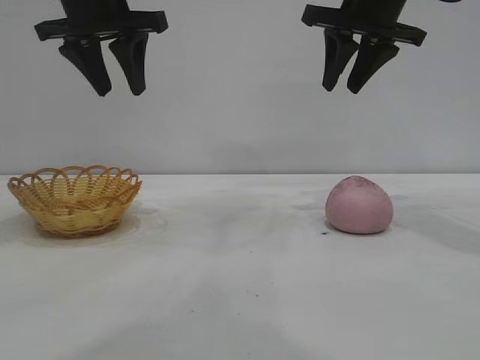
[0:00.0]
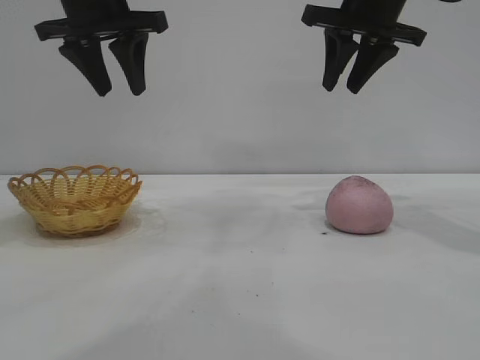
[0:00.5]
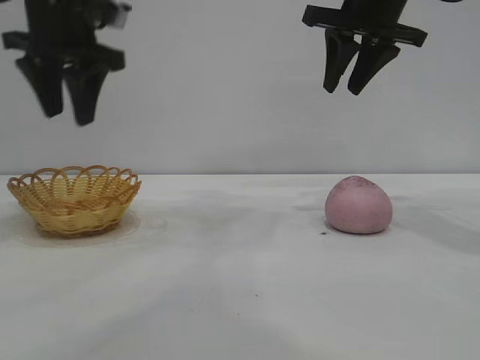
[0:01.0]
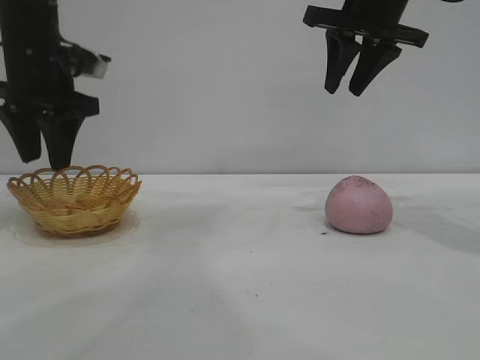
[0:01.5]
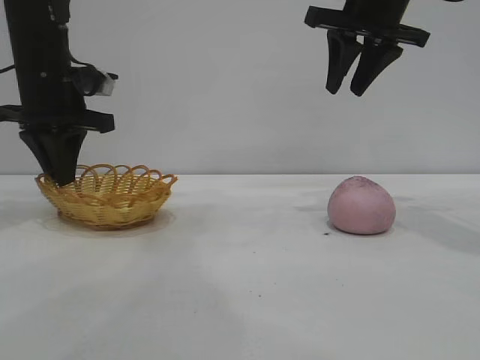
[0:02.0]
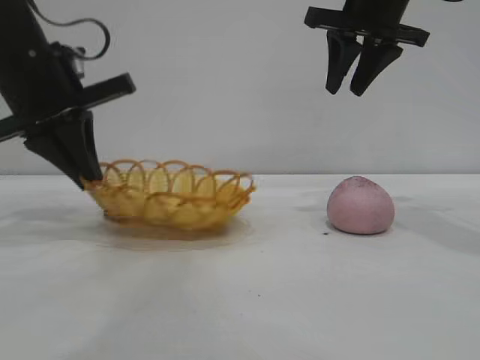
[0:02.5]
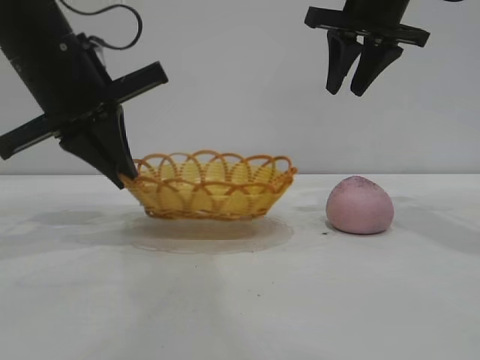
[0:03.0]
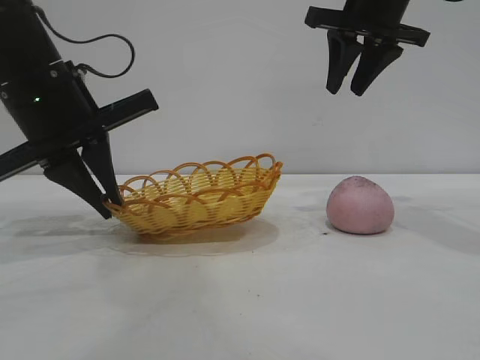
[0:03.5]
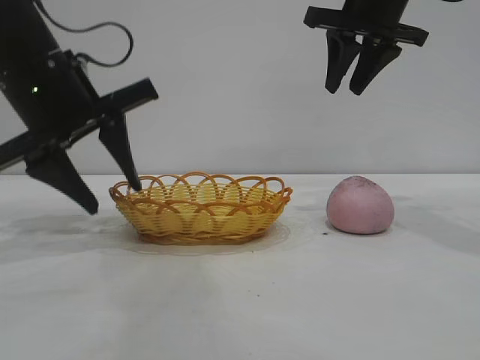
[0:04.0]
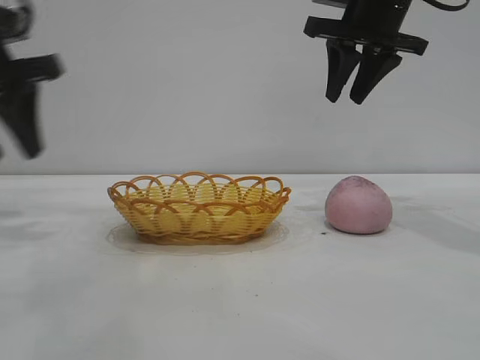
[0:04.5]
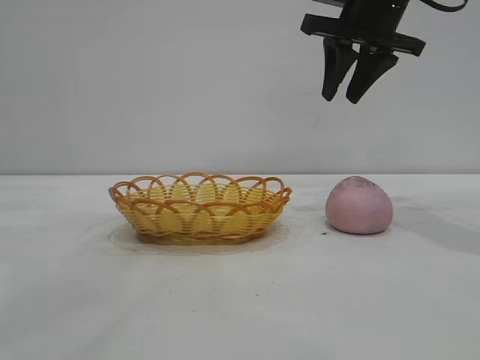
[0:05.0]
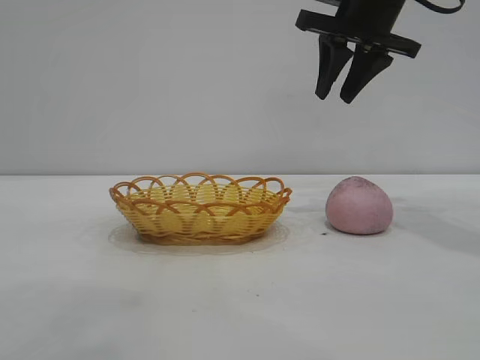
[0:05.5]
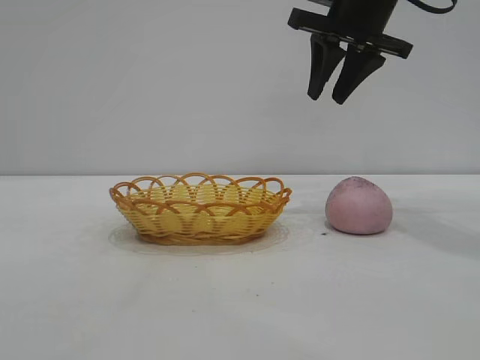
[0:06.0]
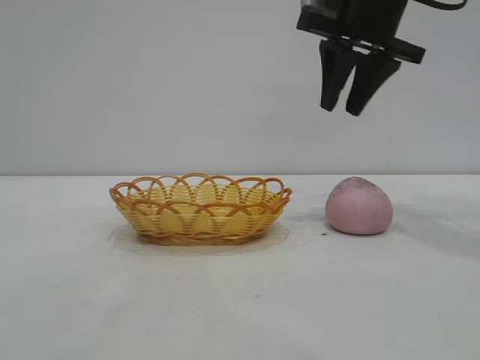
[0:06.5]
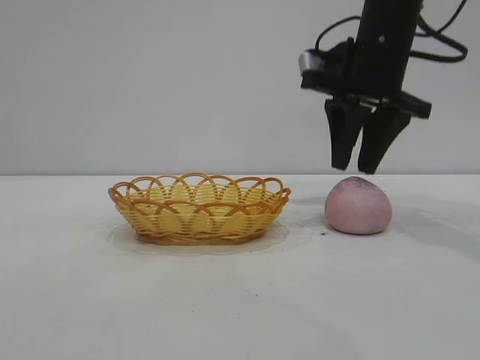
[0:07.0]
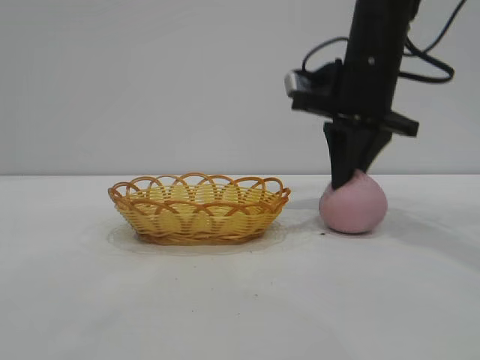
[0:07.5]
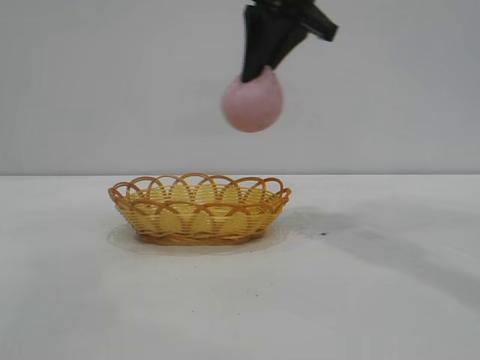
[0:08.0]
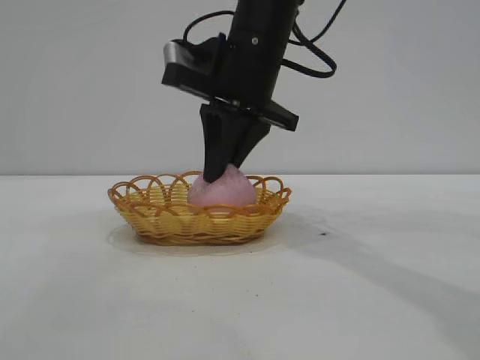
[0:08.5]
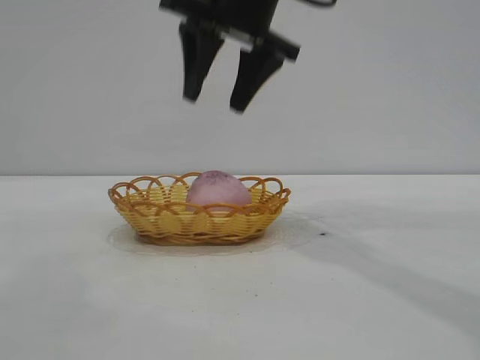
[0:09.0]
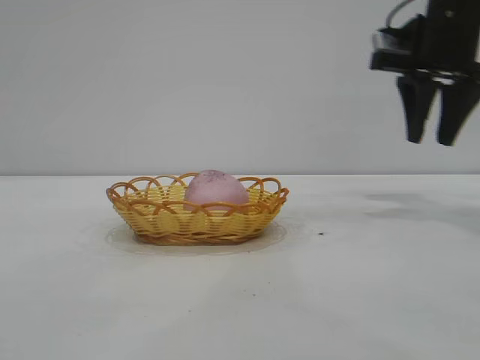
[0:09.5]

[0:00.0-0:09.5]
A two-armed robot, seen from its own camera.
Task of the whole recording: pick up the peach and put it into the basket.
Step, 0:00.0 to 0:04.0: Move the basket to the center of view.
Step, 0:04.5 to 0:07.5: Pick up the peach.
Step, 0:08.0 to 0:09.0: place the peach into the basket.
